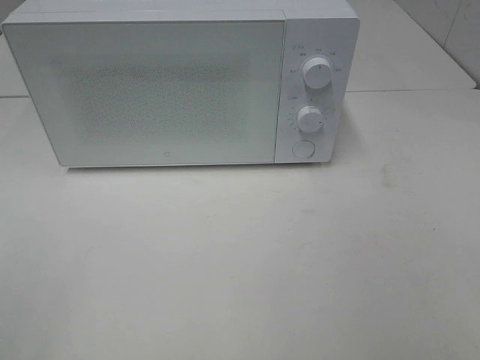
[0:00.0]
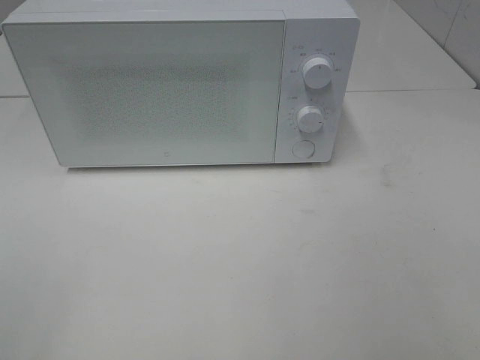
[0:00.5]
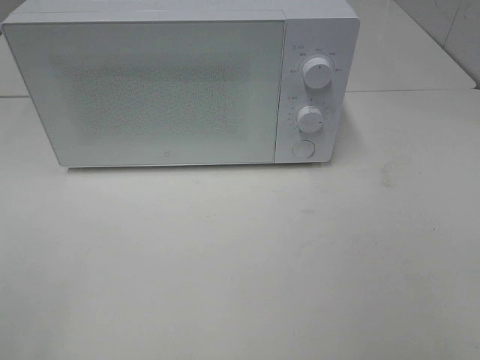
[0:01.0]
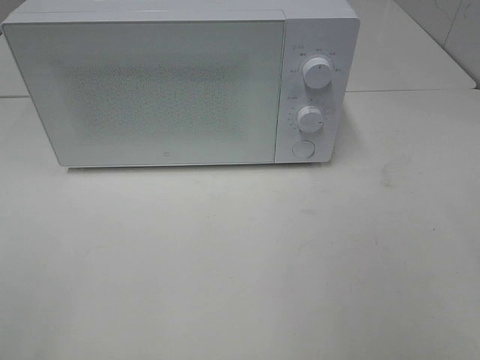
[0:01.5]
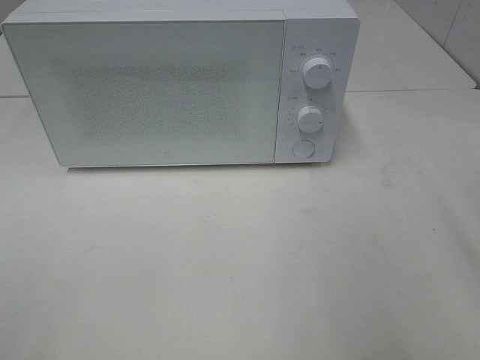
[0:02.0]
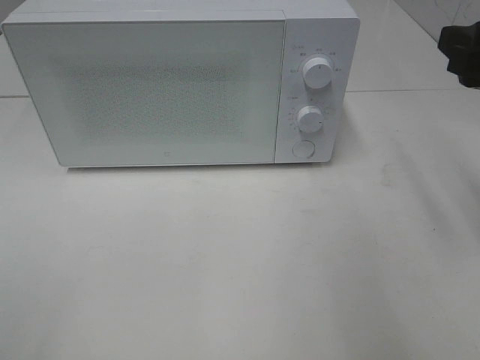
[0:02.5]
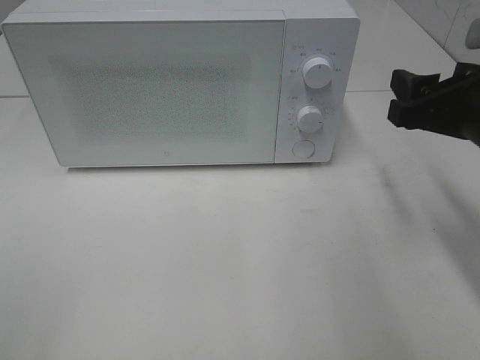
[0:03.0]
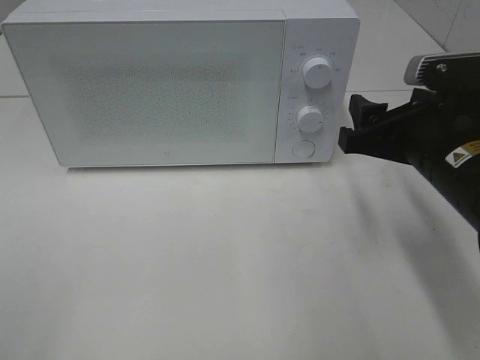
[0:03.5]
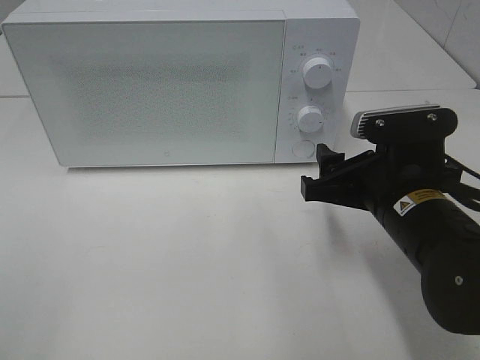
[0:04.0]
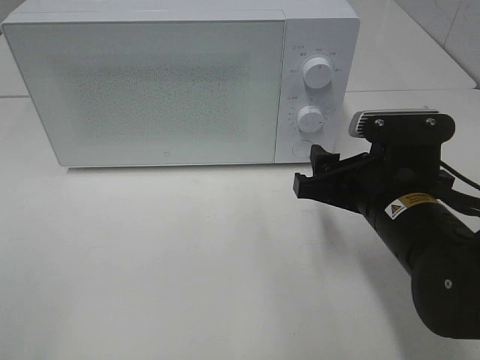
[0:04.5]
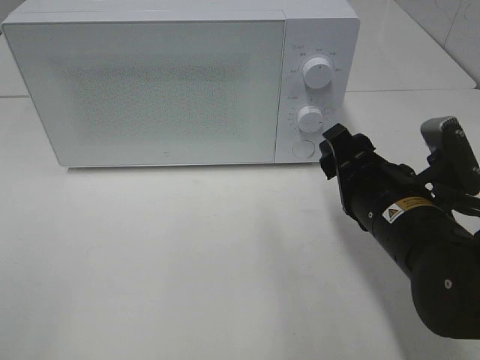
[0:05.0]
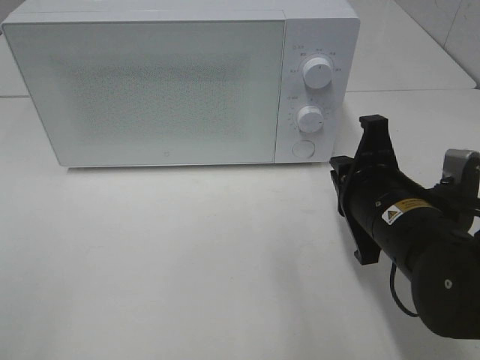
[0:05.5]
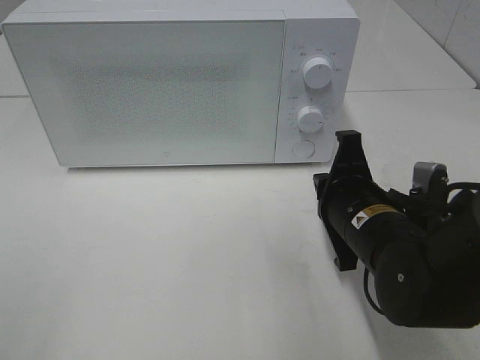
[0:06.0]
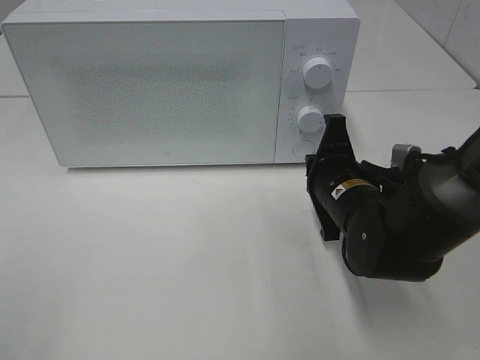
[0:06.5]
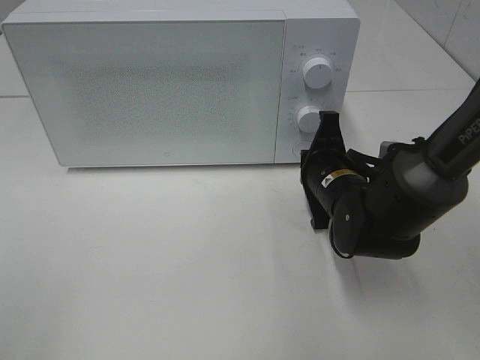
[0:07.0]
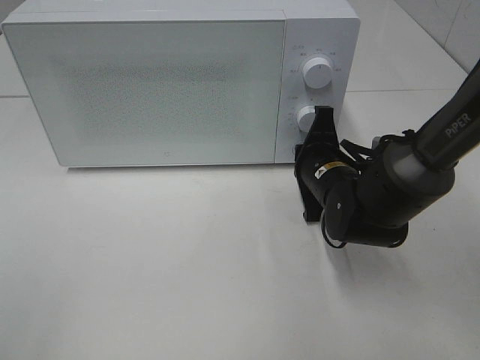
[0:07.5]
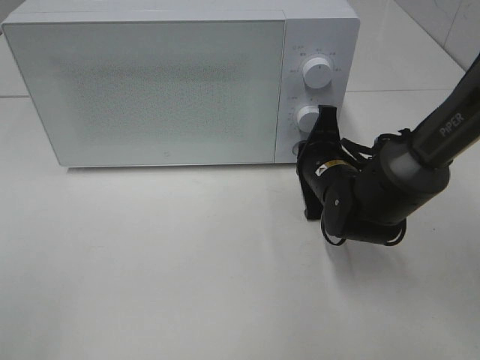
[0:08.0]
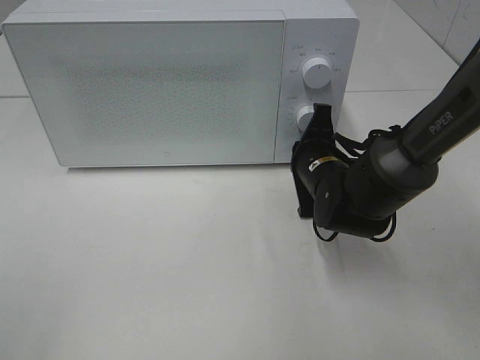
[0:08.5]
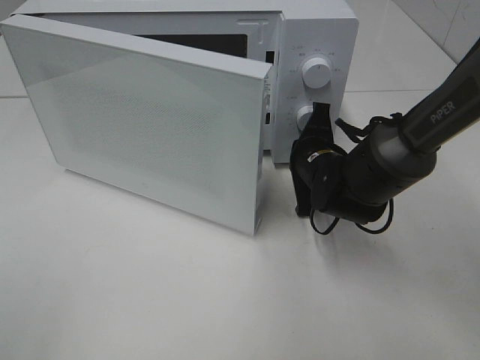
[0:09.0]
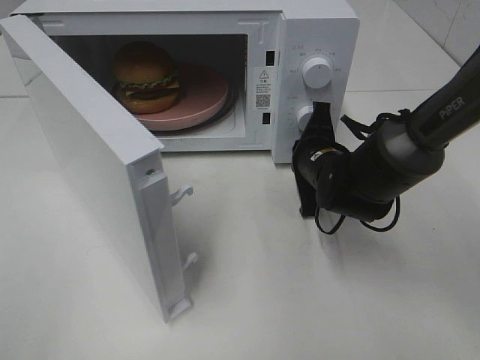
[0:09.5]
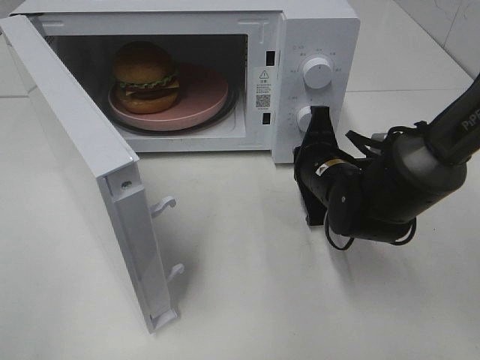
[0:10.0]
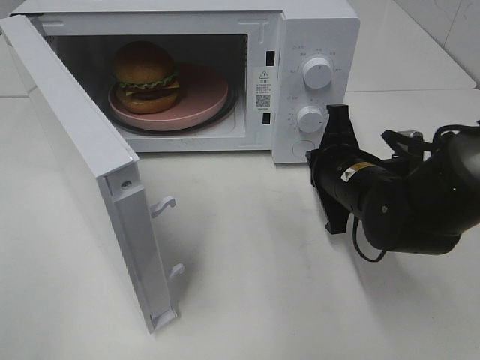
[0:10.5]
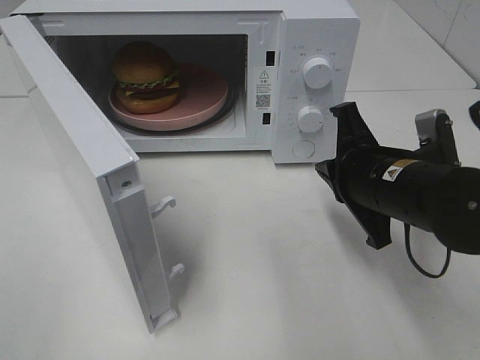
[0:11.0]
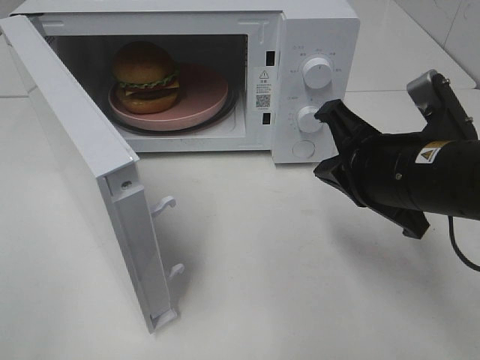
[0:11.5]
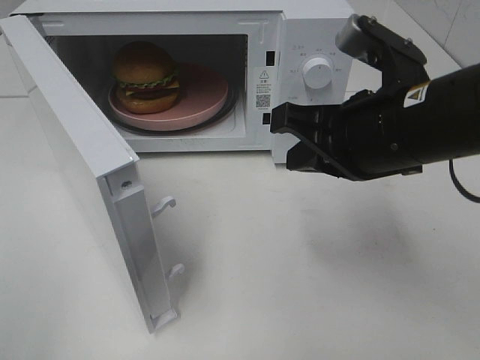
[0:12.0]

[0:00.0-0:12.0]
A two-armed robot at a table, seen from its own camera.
Task of the whole recording: Heat the burger.
Step, 0.0 to 10.0 s: Right hand: press the switch.
2.0 to 4.0 s: The right gripper goes roughly 20 cm downward, to the left and forward.
4.0 to 6.0 s: The right gripper closes up.
6.0 to 8.0 s: The right gripper travels forward by about 10 cm.
10.0 to 12.0 s: The right gripper heads upward and backward, covering roughly 20 cm.

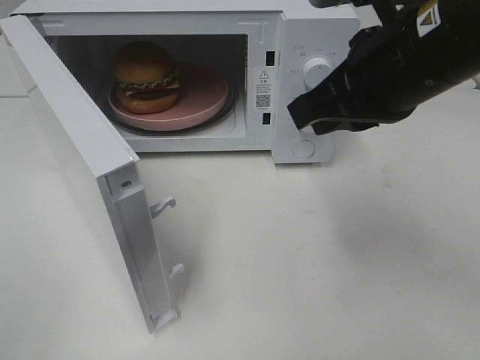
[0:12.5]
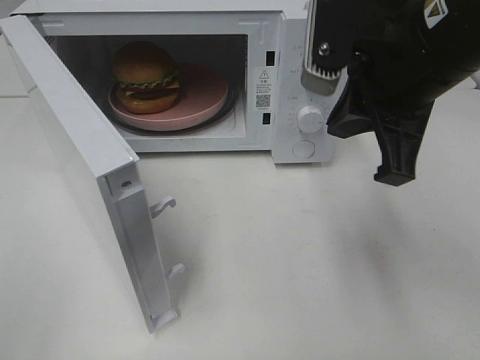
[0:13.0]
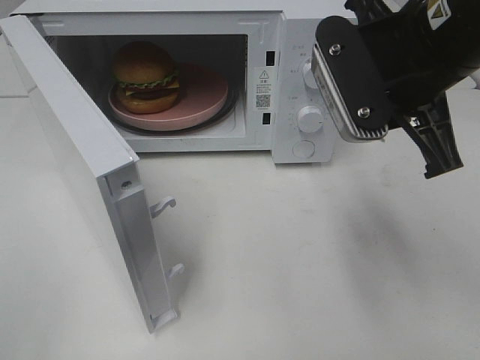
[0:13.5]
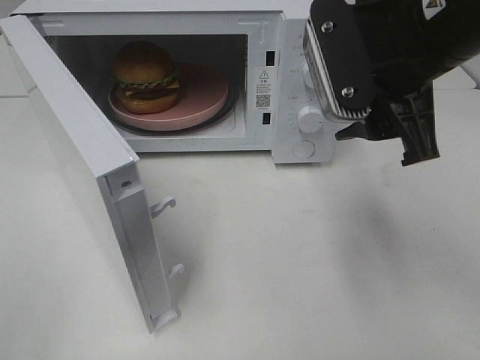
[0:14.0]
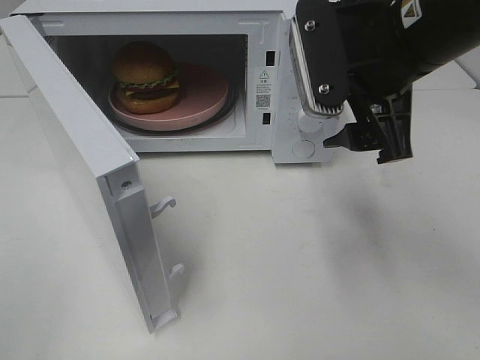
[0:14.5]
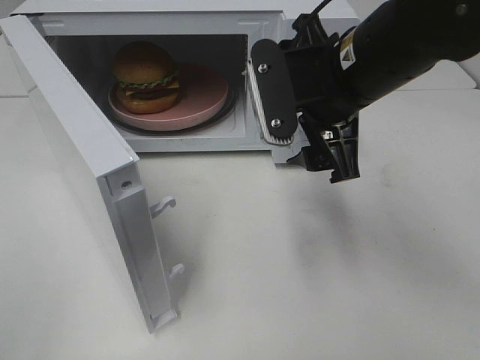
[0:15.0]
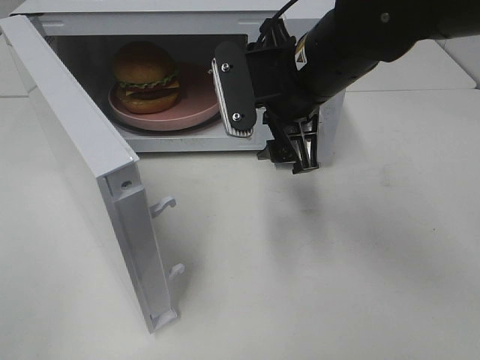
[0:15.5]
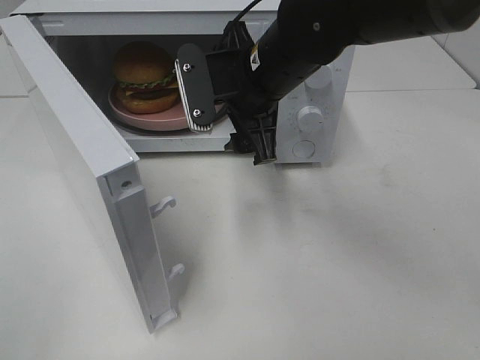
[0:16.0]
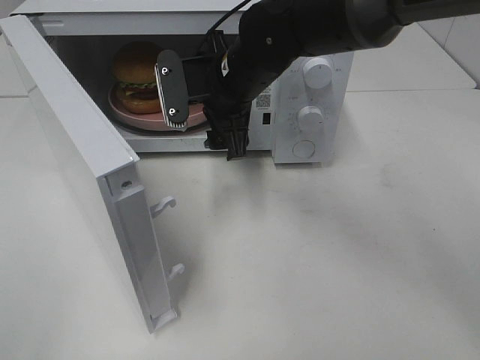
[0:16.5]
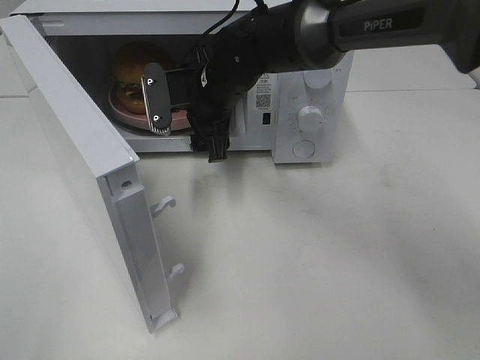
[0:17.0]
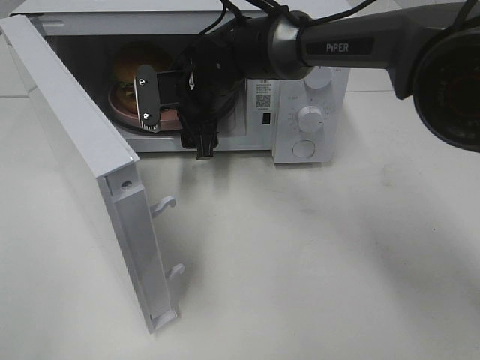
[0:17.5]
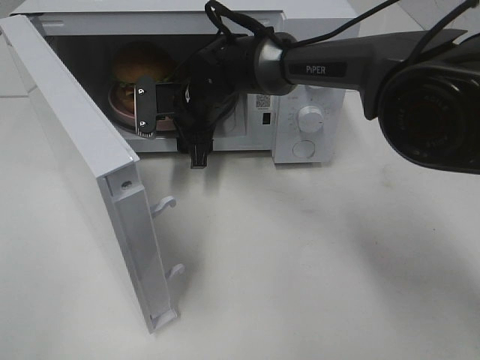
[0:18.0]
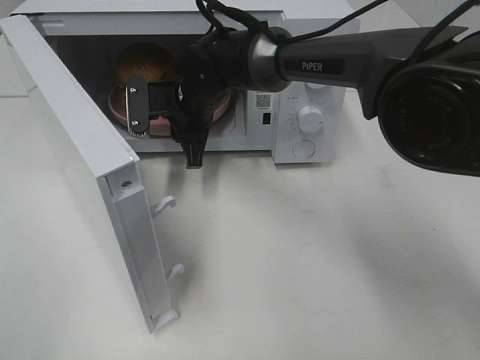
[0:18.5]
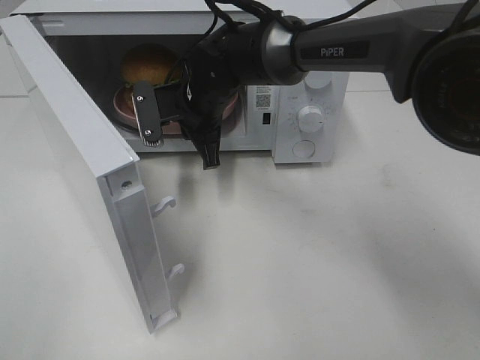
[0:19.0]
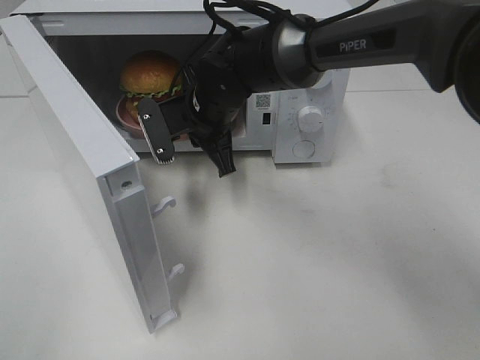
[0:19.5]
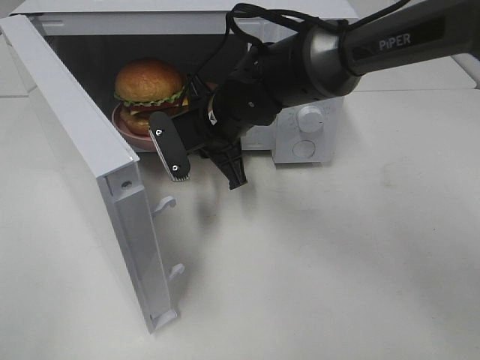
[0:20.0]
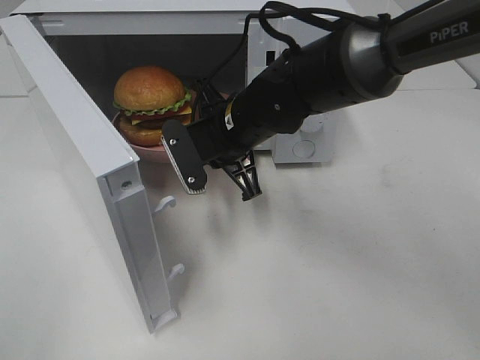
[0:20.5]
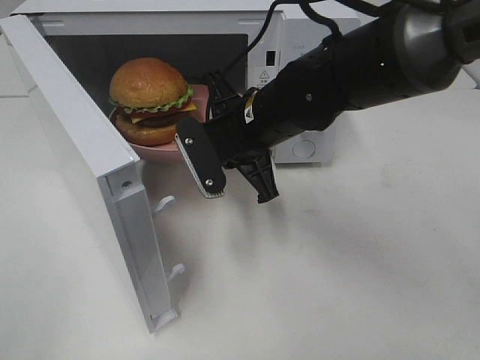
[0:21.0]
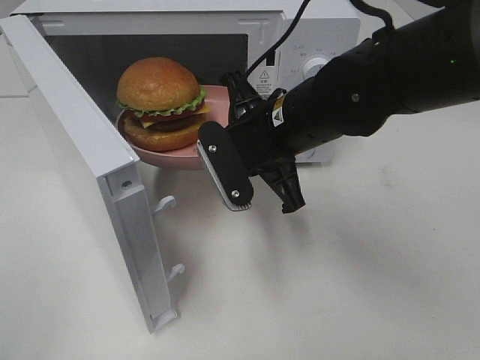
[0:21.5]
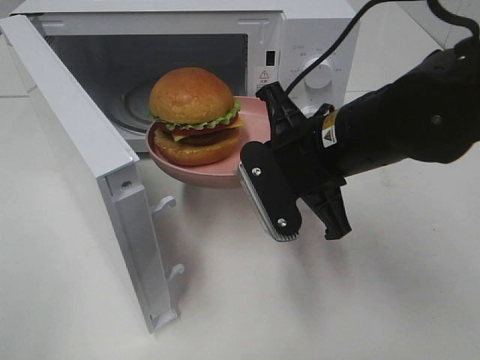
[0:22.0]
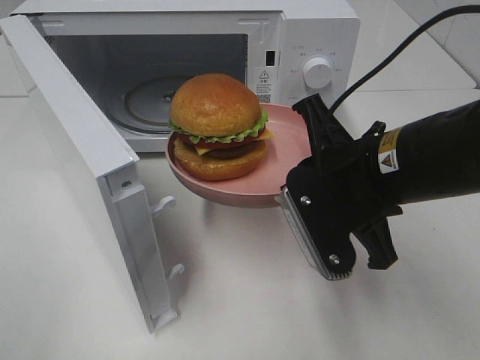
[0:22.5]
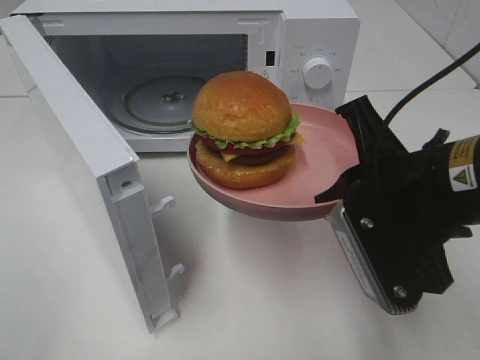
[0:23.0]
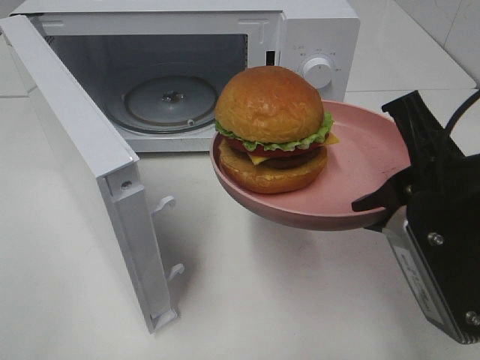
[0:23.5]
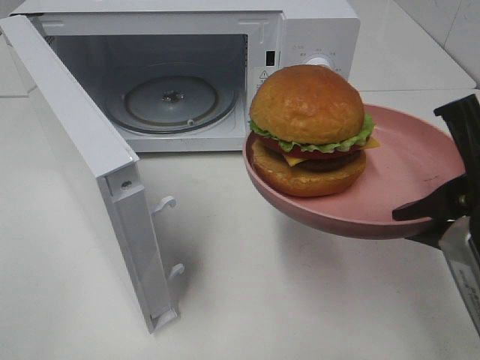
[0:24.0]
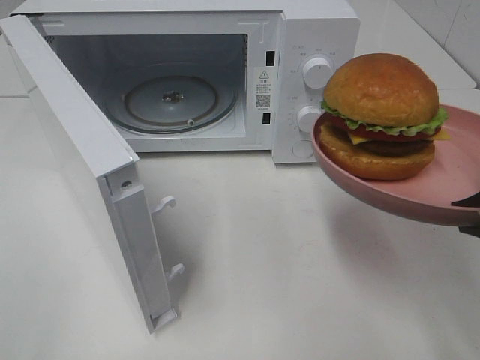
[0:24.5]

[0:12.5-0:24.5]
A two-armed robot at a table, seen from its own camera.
Task of the whole recording: Heat the burger.
Step, 12.5 to 19.0 s: Right hand: grab the plate with the hamburger.
12.5 to 14.5 s: The right gripper opens up.
14.5 to 16.5 s: The right gripper moves to the left, forward and downward, about 20 cm.
16.5 to 18.5 s: The right gripper is displaced downward, forward and to the left by some 10 cm, and closes.
18.5 to 20.5 s: The right gripper shifts about 10 cm backward and to the right.
20.5 to 22.5 s: The right gripper is displaced backward and to the right by about 15 cm.
22.5 to 24.5 s: The right gripper goes approximately 15 cm to the right and backward.

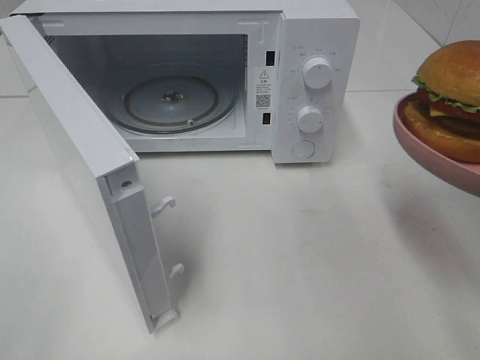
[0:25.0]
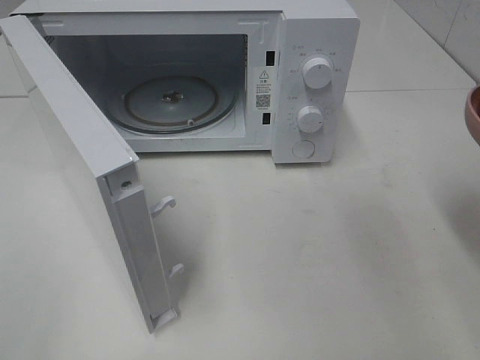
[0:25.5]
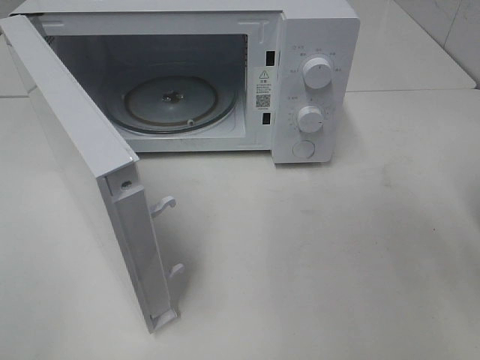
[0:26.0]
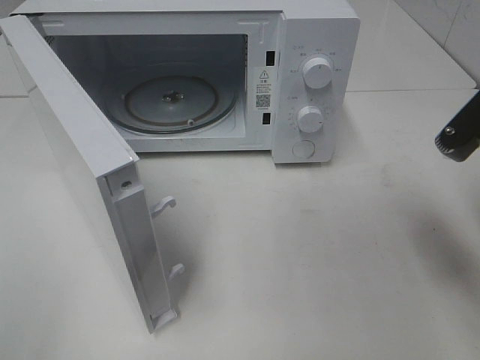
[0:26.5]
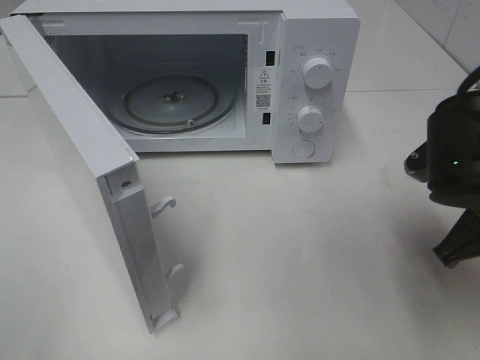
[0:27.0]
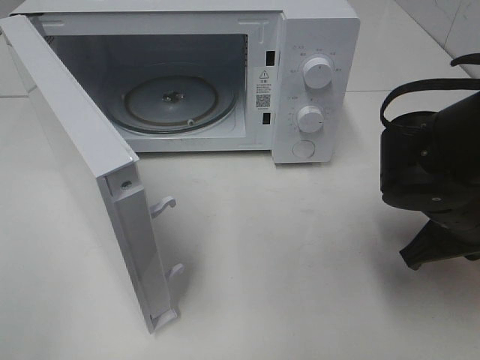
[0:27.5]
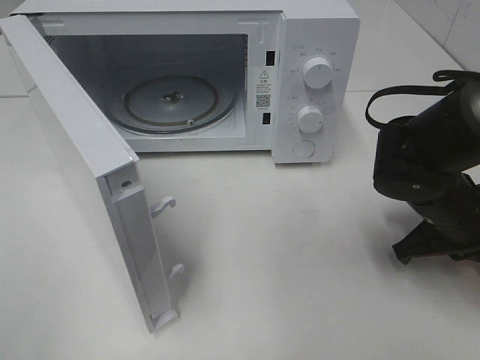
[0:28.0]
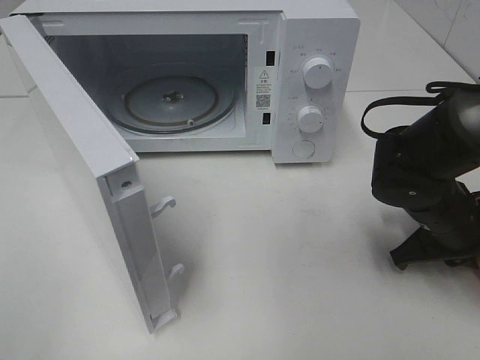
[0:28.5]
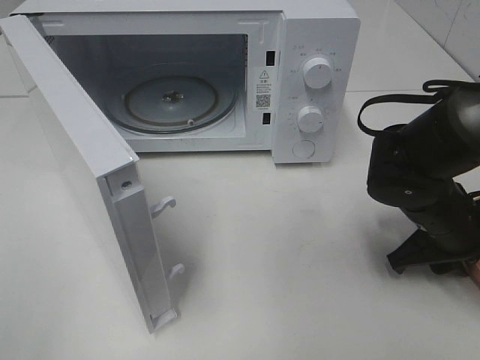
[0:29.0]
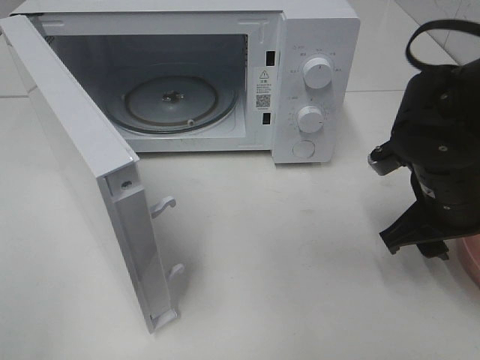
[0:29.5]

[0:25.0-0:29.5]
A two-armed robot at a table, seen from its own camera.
Task of the whole recording: Heat the burger.
Step, 25.0 to 29.0 s: Right hand: place the plate on the table.
25.0 to 27.0 s: The right gripper moves downward and forward, about 10 cm.
27.0 to 29.5 s: The right gripper reaches roughly 10 cm downward, then returns, and opens its fingers.
